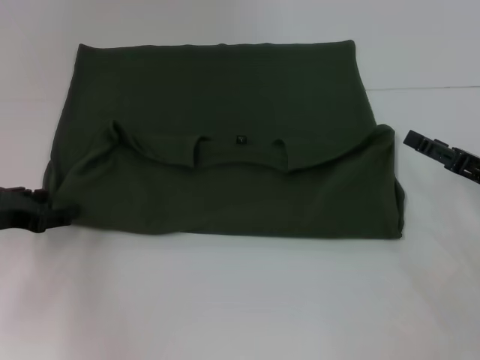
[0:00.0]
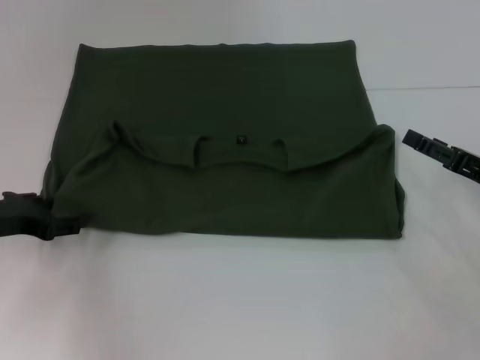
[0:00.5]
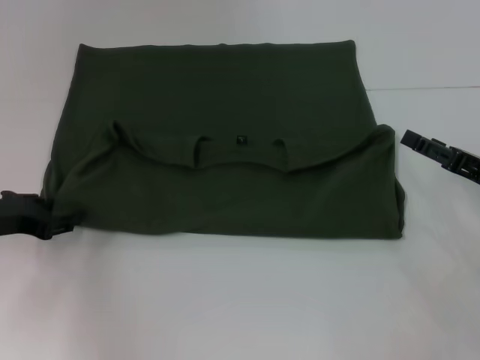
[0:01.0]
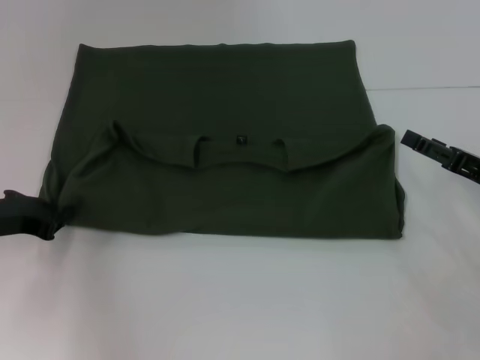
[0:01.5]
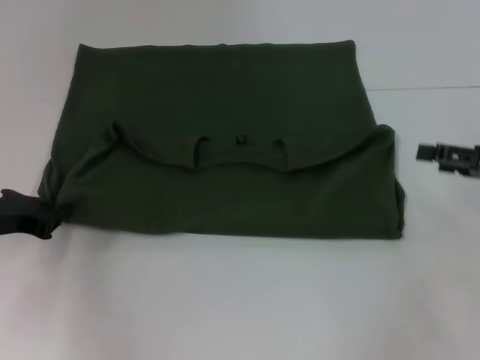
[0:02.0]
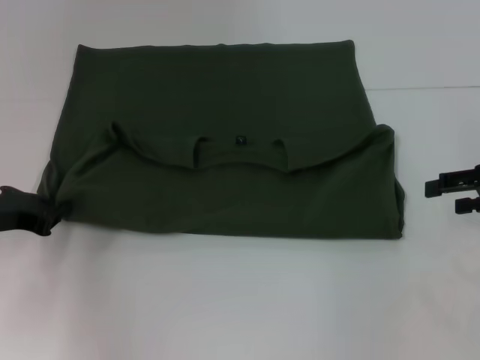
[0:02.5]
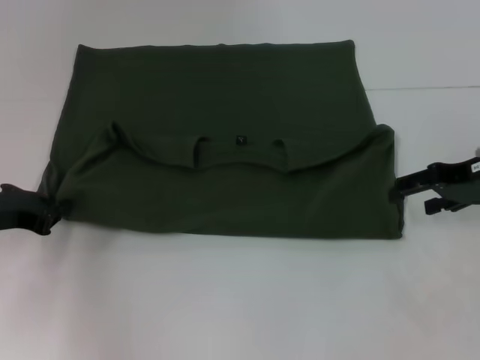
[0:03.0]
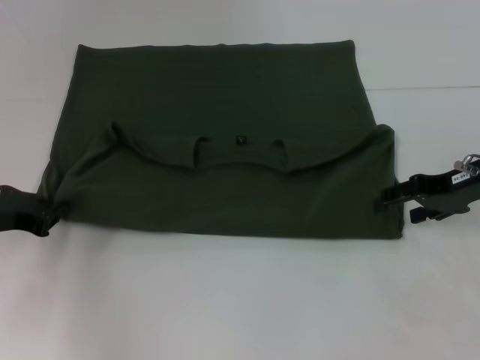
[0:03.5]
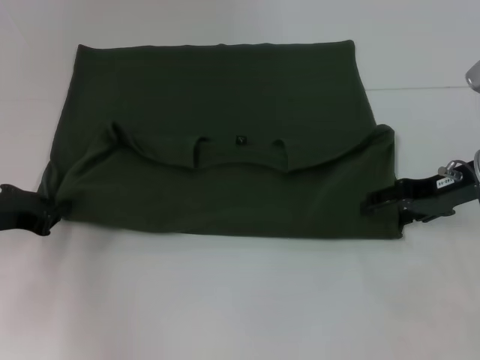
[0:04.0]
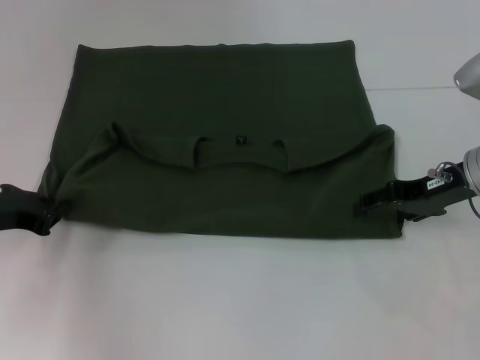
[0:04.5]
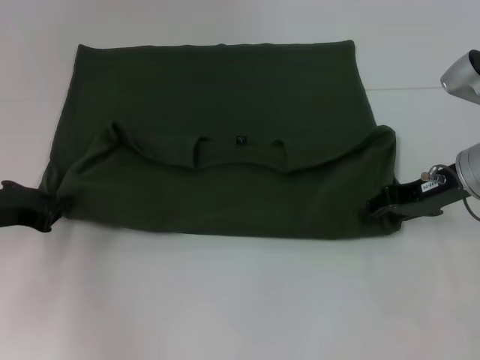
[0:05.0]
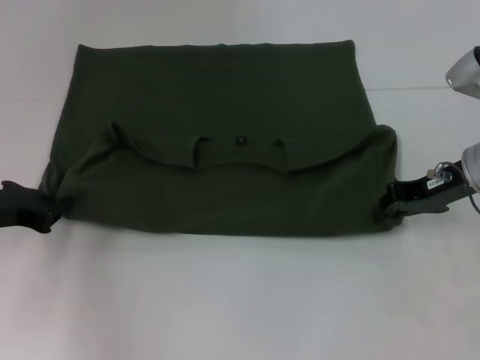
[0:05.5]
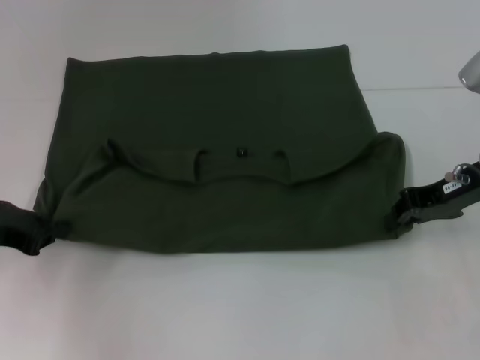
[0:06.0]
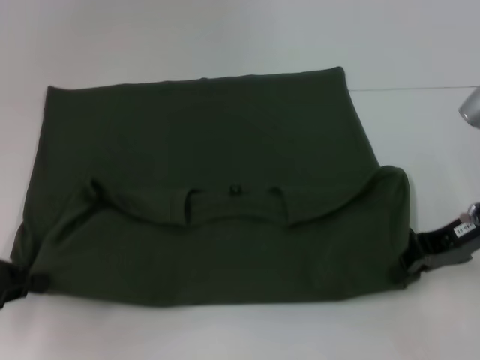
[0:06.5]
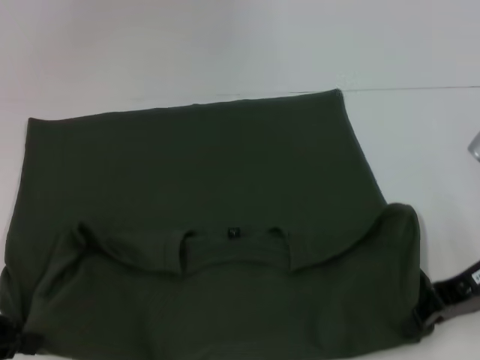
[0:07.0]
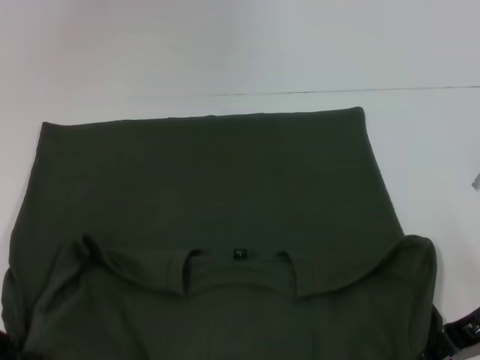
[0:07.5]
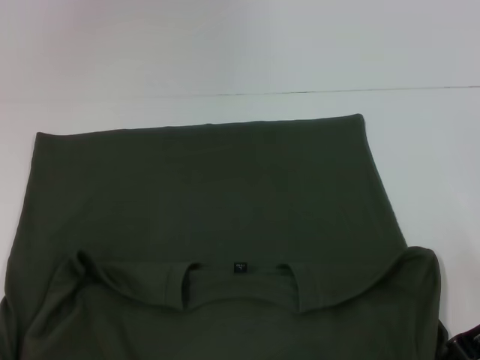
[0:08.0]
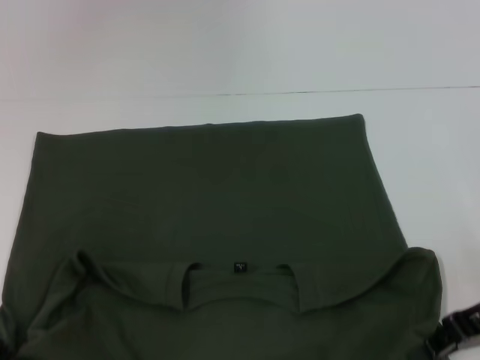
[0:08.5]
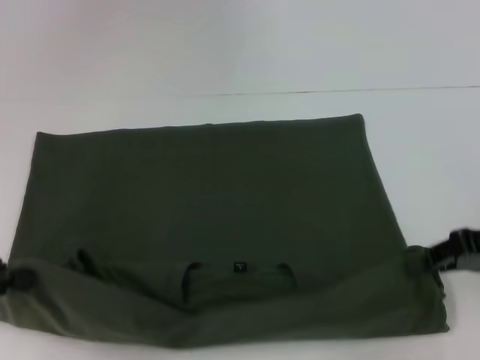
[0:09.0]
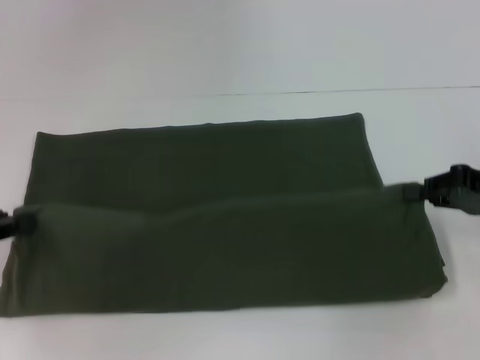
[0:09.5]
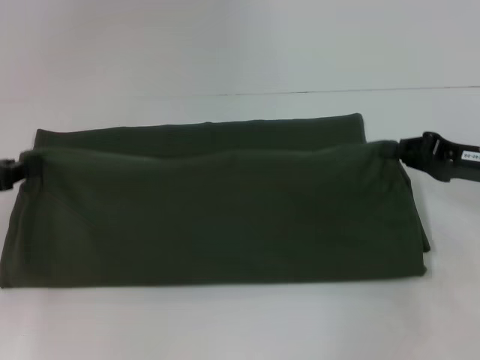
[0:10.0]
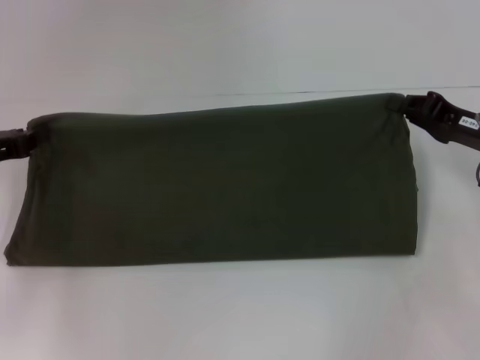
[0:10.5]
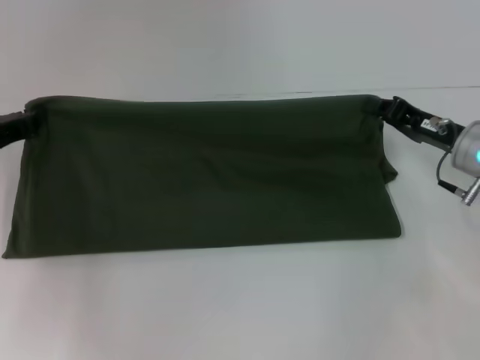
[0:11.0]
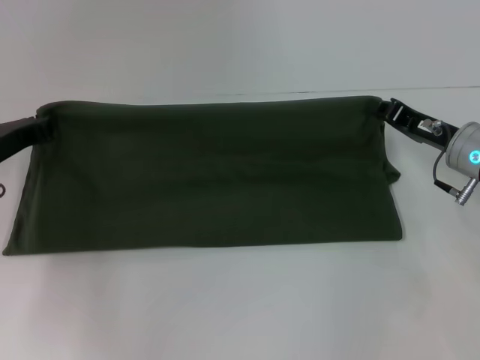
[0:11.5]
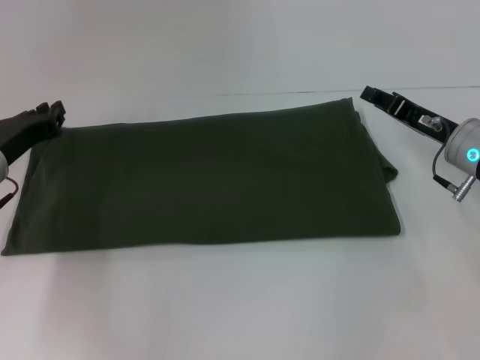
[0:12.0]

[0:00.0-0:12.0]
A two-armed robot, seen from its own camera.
Step, 0.0 to 8.0 s: Pull the clothes with your left hand.
Step, 0.0 to 8.0 s: Pull the clothes with your right hand.
Step, 8.5 to 11.5 s: Fold the clothes with your right hand.
0.0 to 2.0 s: The right gripper is displaced upward by roughly 5 cm.
2.0 to 4.0 s: The right gripper travels to the left and forward by roughly 10 cm.
4.0 to 6.0 s: The right gripper closes its fingers.
6.0 to 8.0 s: The two grippers go some 10 cm backward.
8.0 to 10.0 s: The grippers both shift forward by roughly 5 cm.
10.0 to 12.0 s: The right gripper ends up approximately 5 cm from where it was; the left gripper shifts approximately 10 cm to the right and forward.

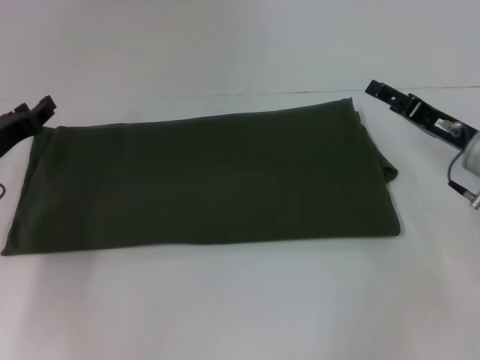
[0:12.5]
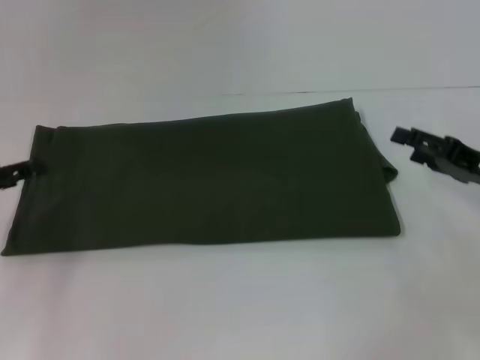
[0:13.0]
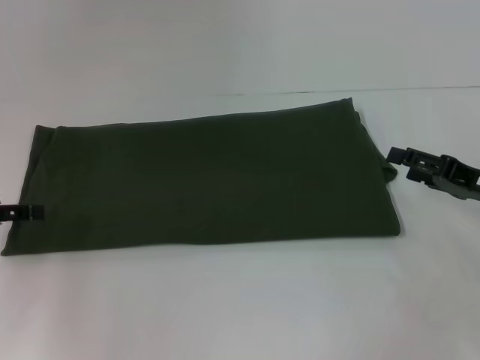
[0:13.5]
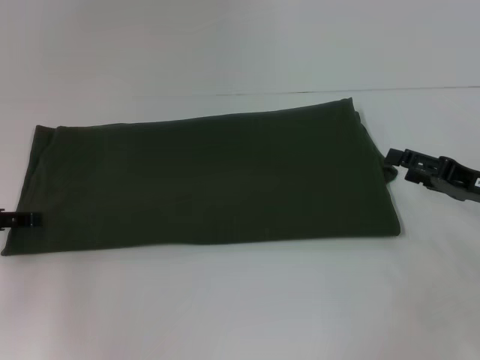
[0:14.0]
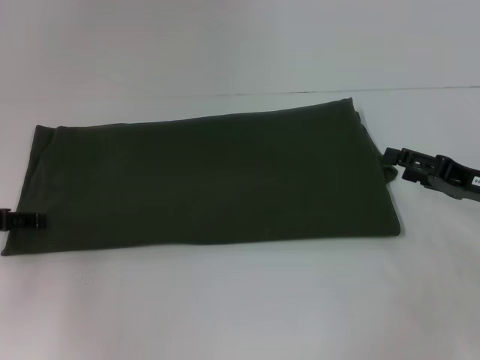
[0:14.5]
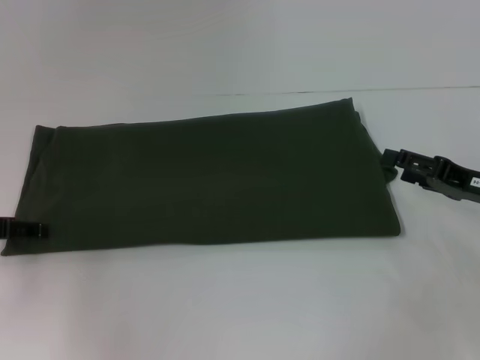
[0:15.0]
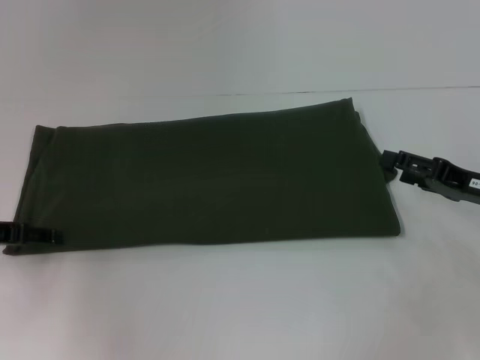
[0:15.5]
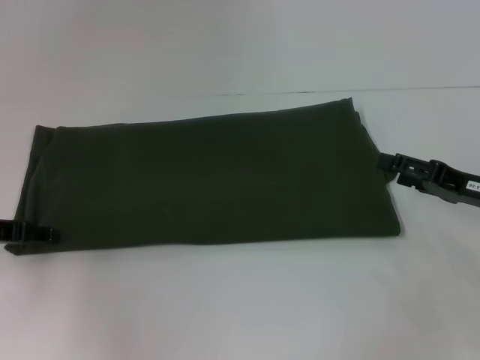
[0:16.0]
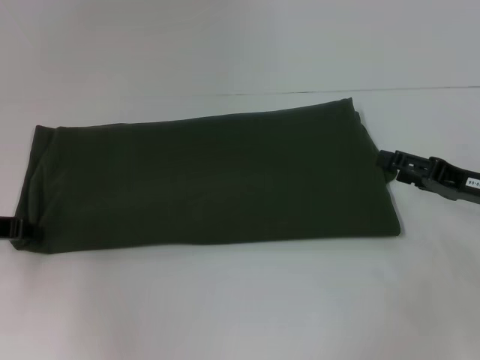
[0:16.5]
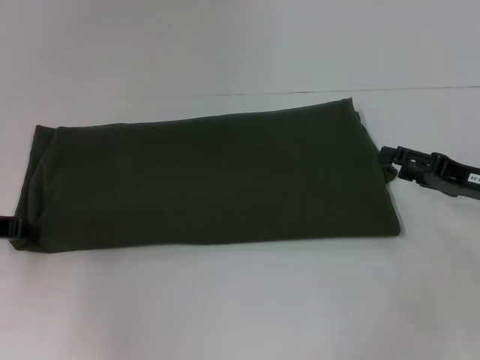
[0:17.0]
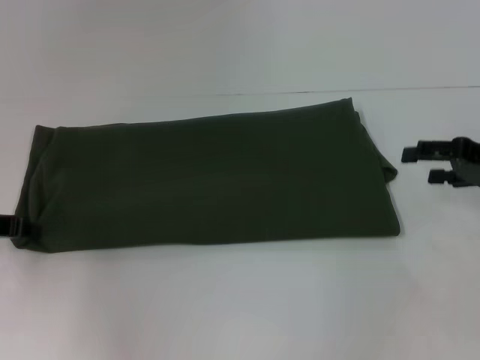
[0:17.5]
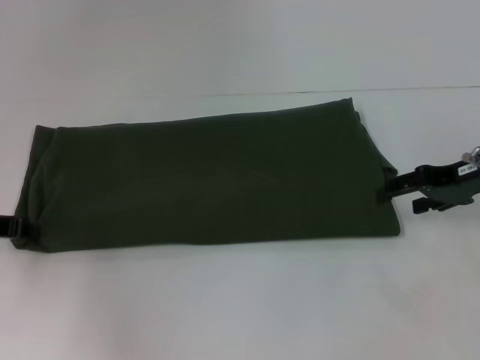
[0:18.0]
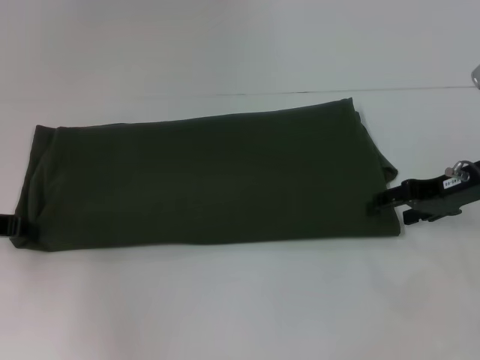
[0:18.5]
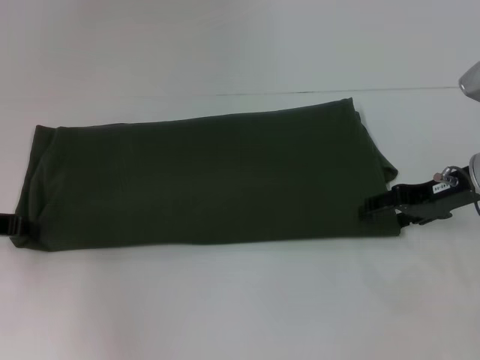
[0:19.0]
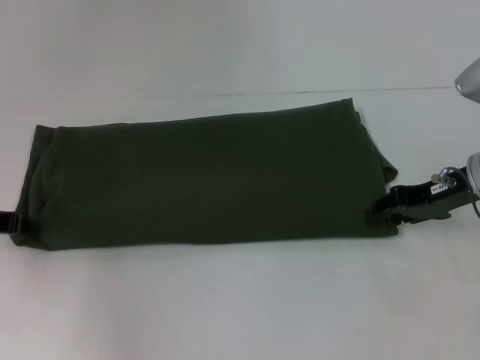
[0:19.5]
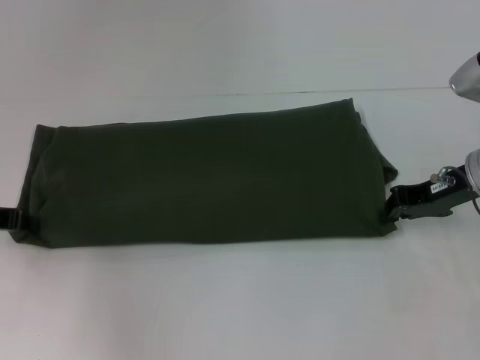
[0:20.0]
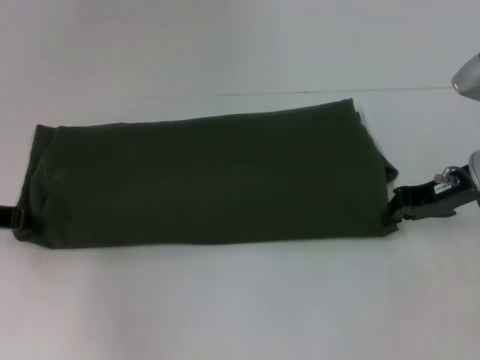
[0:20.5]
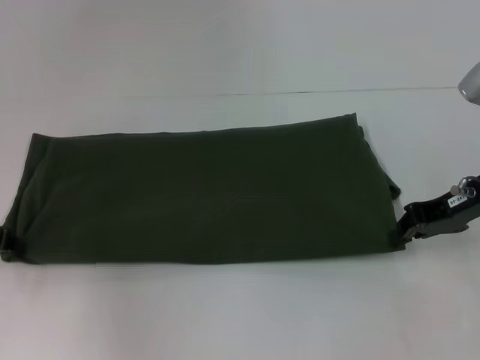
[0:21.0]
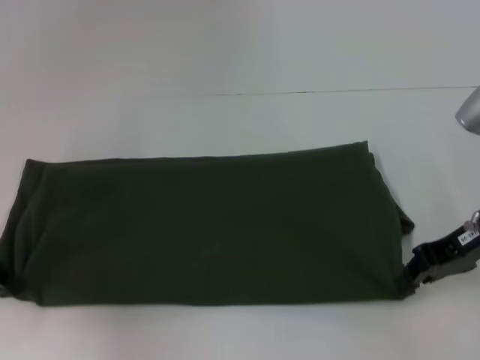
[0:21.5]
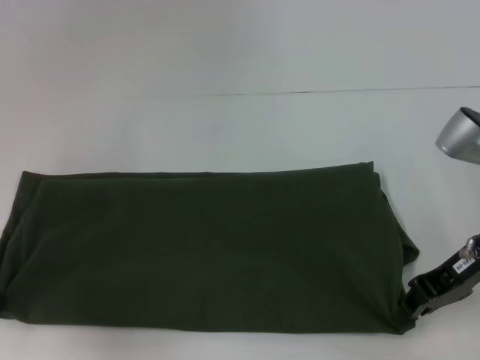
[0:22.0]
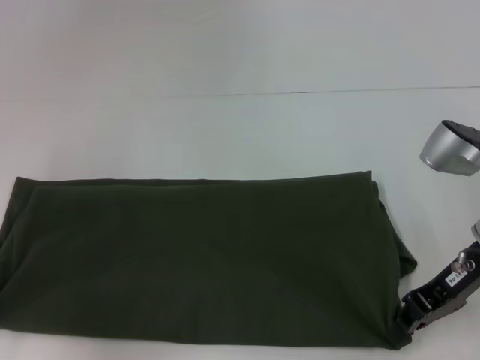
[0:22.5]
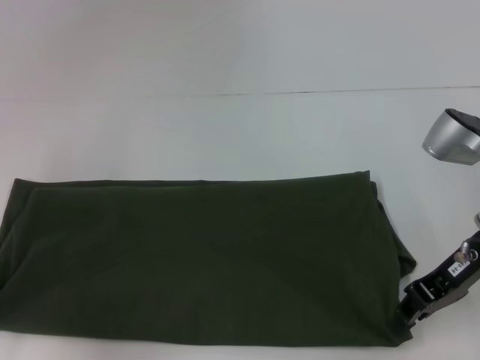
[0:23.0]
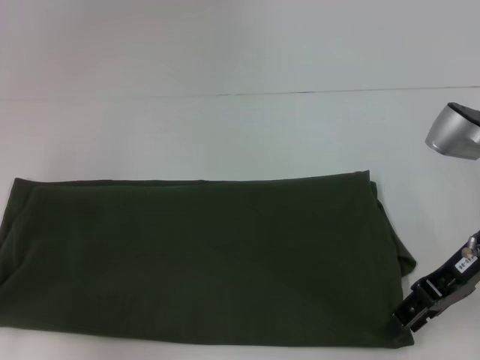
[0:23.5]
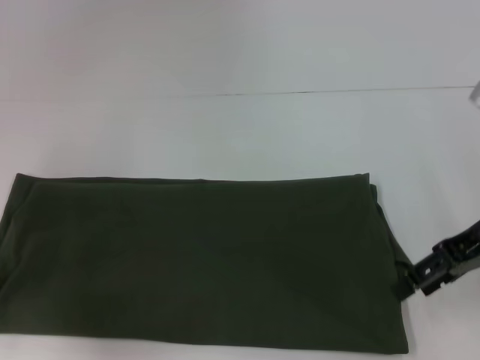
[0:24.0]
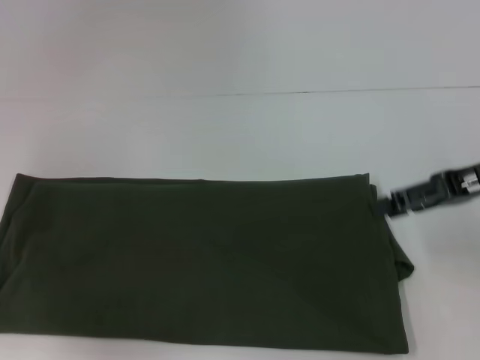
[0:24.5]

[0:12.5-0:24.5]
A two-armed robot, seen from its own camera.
Step, 12.5 to 23.5 s: Pull the clothes with your right hand.
12.5 to 14.5 s: The left gripper shifts roughly 5 cm to the left, and opens; the right gripper shifts by about 5 cm.
16.5 to 18.5 s: The right gripper heads forward, covering roughly 5 cm.
18.5 to 20.5 s: The right gripper closes up.
20.5 to 22.5 s: Both grippers move backward, some 5 cm.
22.5 to 24.5 s: The right gripper is displaced upward by about 5 cm, and opens up.

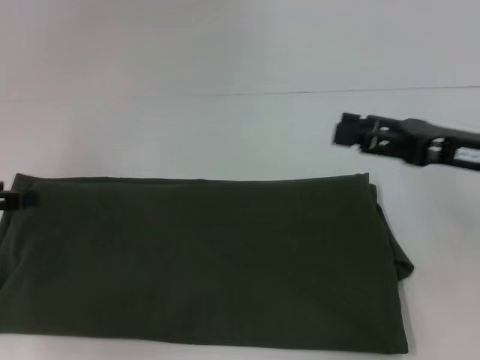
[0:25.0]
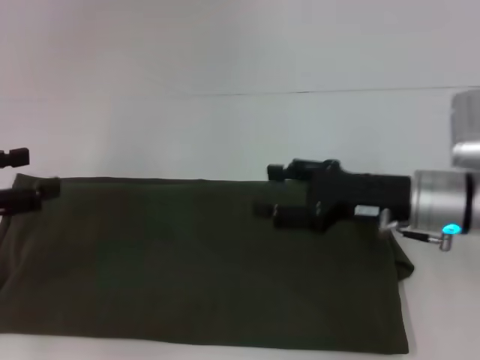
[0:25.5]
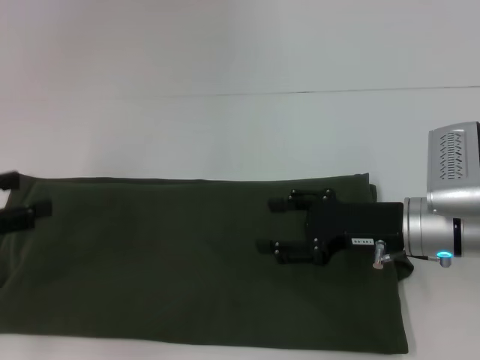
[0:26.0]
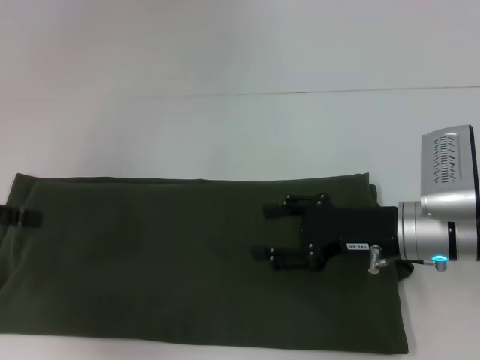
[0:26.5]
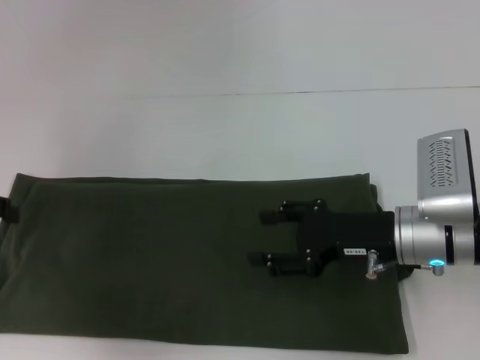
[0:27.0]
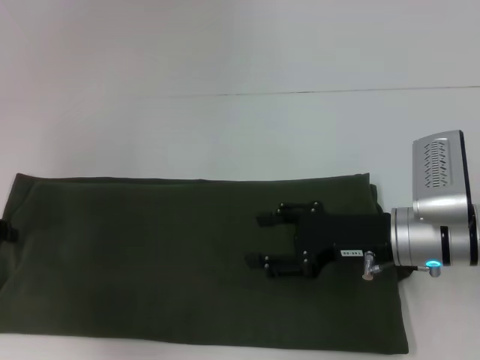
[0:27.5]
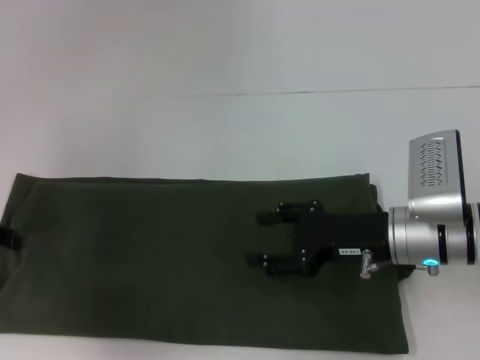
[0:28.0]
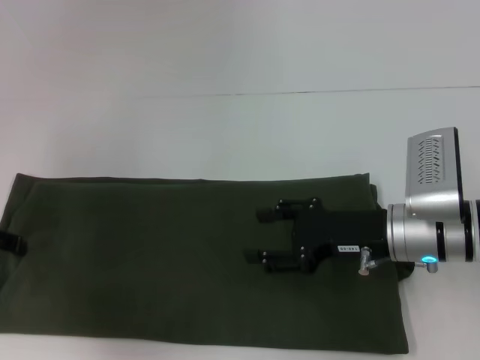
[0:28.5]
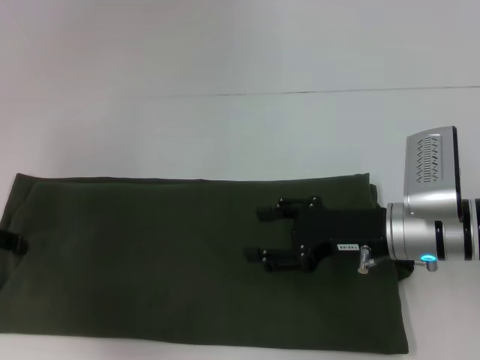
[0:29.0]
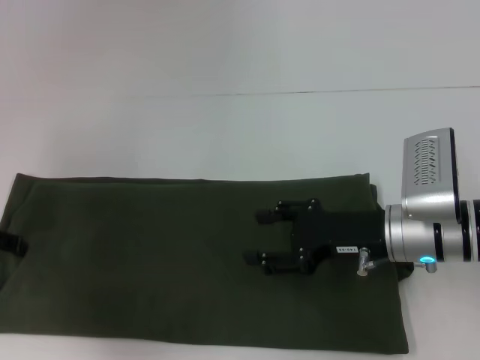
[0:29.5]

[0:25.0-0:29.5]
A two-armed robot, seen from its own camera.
25.0 to 27.0 s: The right gripper moves to the left and downward, roughly 10 cm.
